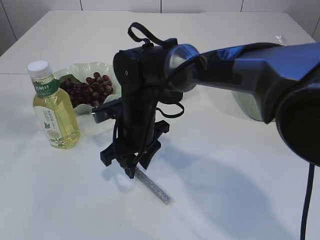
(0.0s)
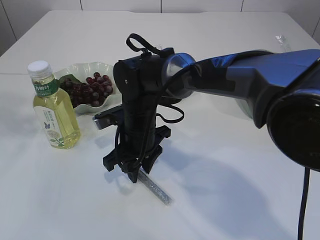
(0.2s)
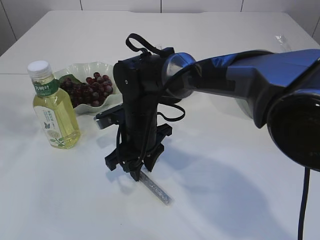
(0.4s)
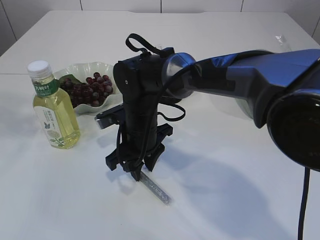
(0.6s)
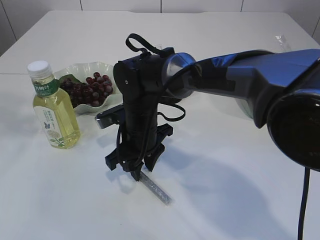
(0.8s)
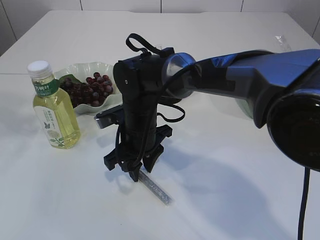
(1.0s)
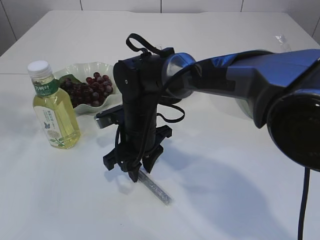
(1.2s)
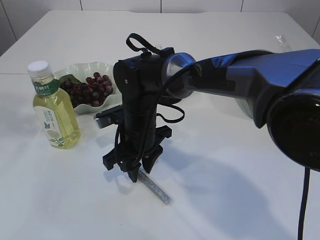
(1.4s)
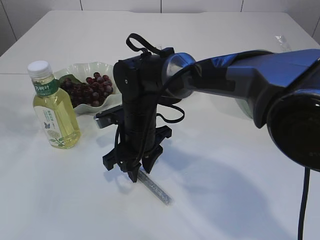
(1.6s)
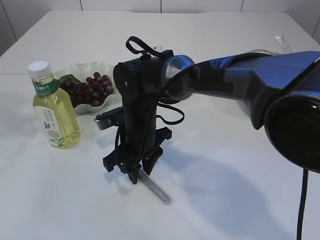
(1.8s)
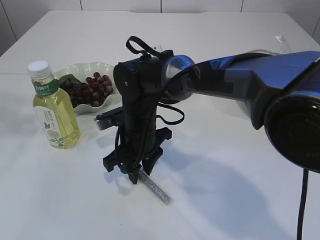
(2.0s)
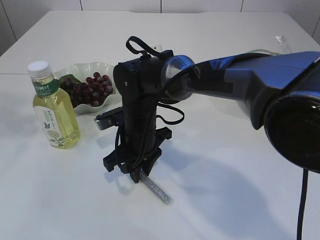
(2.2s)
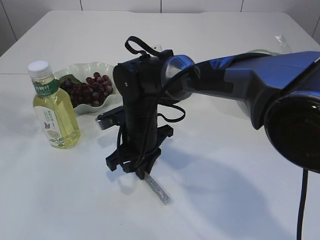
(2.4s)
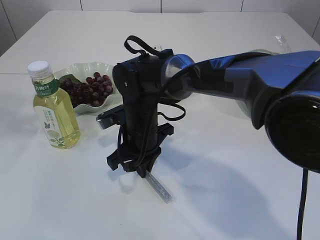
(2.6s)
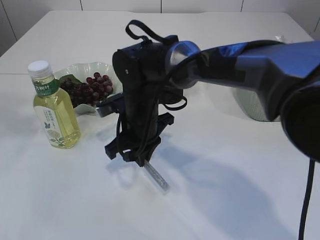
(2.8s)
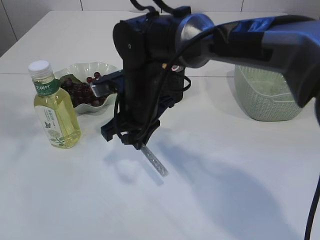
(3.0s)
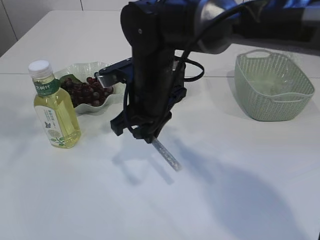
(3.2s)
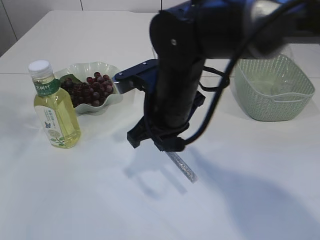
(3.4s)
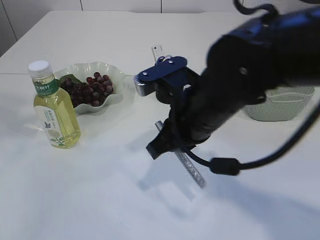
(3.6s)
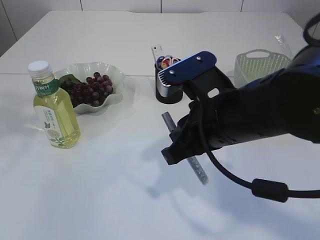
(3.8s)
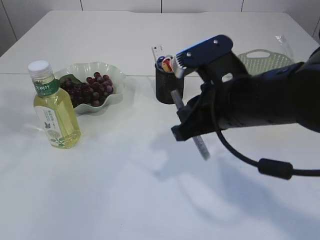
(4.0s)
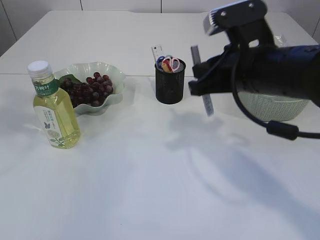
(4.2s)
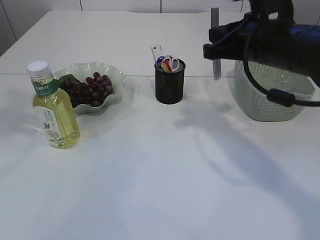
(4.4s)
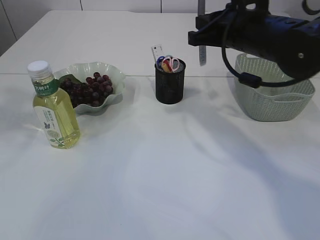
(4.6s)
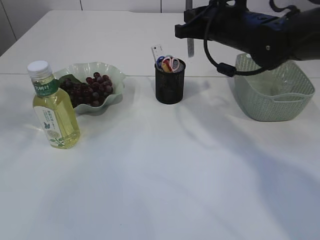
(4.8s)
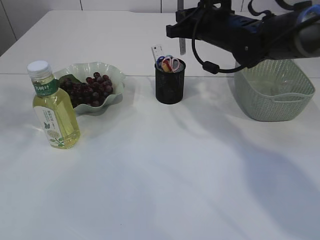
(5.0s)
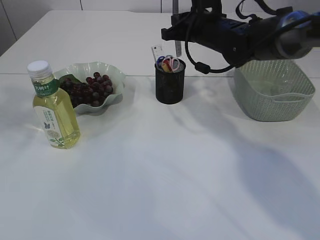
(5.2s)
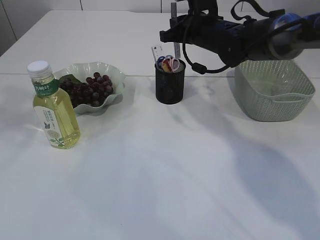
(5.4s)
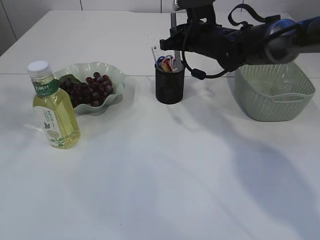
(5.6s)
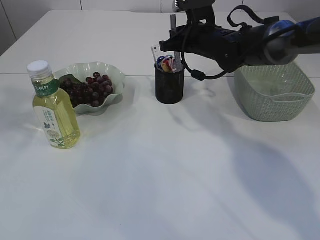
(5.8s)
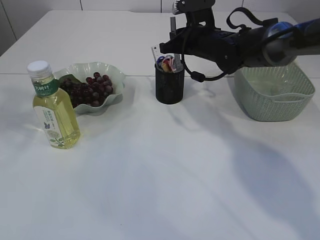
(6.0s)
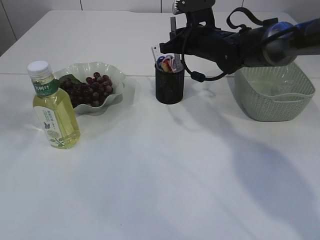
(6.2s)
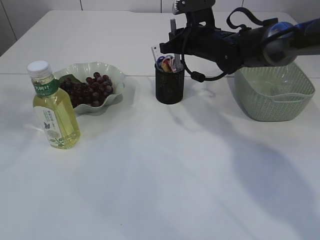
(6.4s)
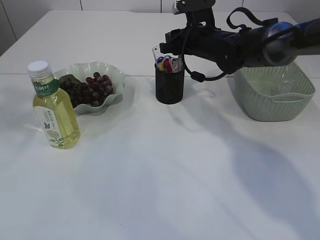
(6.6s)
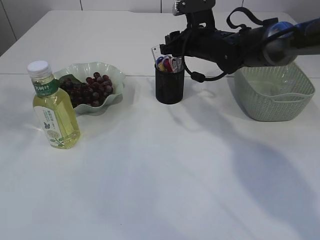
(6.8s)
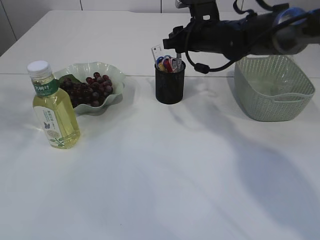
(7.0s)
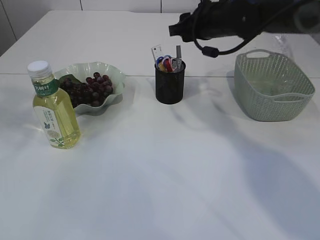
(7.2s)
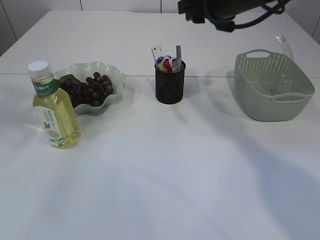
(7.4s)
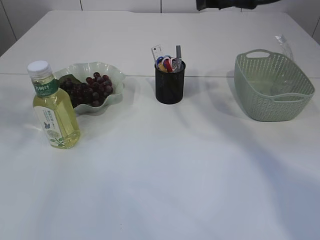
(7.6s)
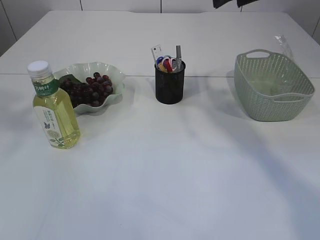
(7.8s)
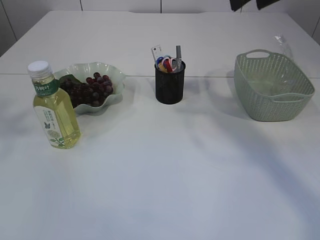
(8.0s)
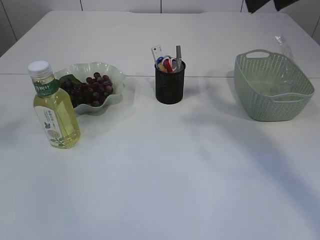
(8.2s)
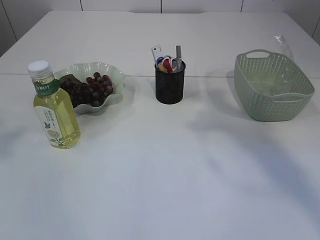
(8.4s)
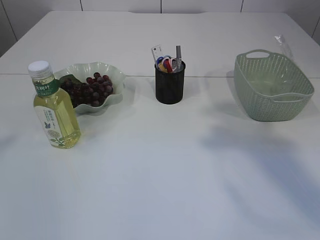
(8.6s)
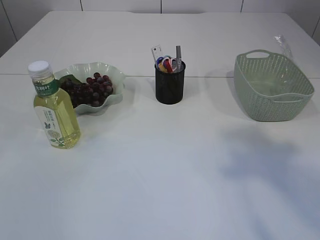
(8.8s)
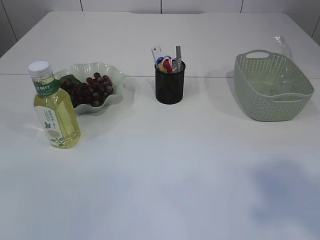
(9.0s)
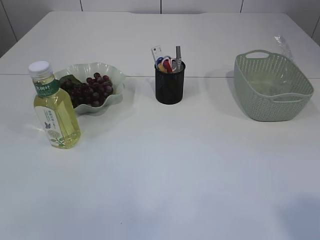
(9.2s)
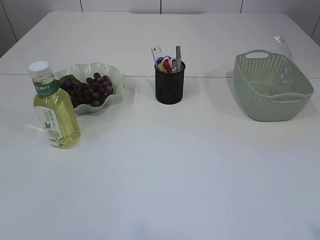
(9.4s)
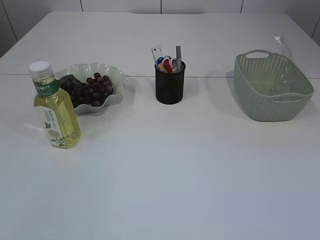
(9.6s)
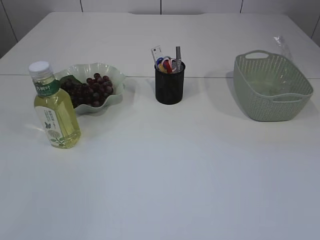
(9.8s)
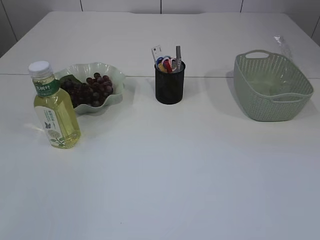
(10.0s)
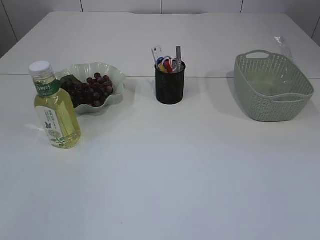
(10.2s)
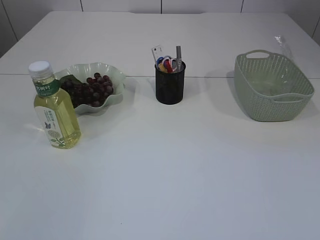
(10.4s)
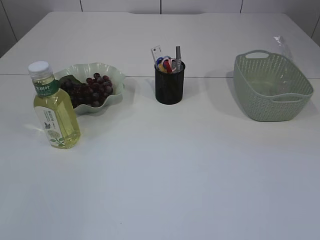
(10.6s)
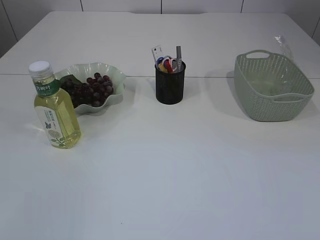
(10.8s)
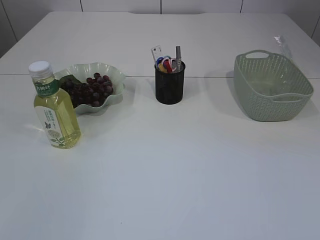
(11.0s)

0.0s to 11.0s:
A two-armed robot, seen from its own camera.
Step, 0.0s to 3.0s: pick up the silver glue.
Step, 3.2s to 7.0s: place the silver glue into the pen holder.
0.0s to 1.6s: The grippers make only small movements.
1.6s to 3.2s: The right gripper is displaced upward by some 10 cm, and closes.
3.2s to 4.8s: The right gripper travels to the right and forward by approximately 15 cm.
4.8s to 6.2s: The right gripper moves forward and downward, roughly 10 cm.
6.2s to 7.8s: The right gripper heads upward and backward, covering approximately 20 cm, and opens its fingers.
7.8s to 9.4s: The right gripper moves backward, approximately 35 cm.

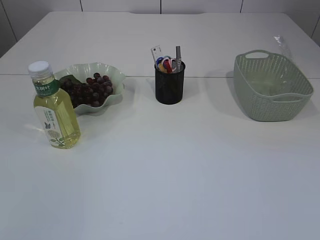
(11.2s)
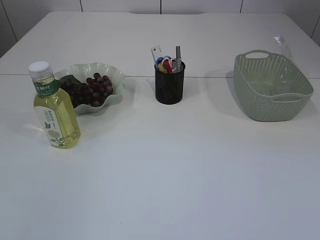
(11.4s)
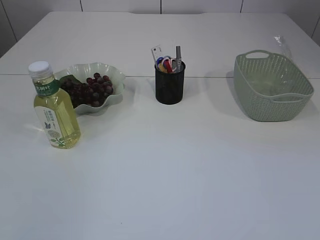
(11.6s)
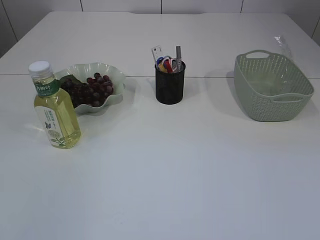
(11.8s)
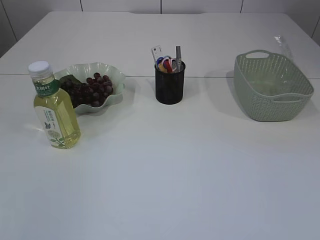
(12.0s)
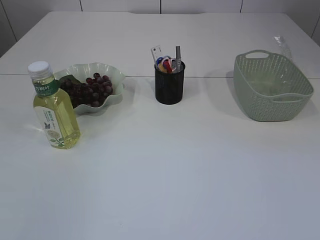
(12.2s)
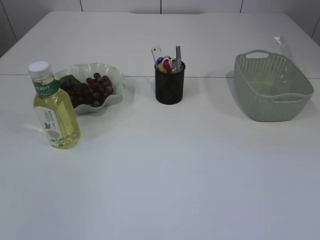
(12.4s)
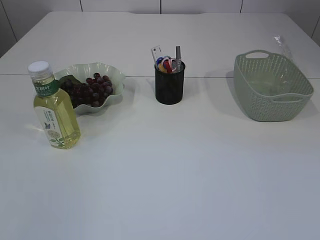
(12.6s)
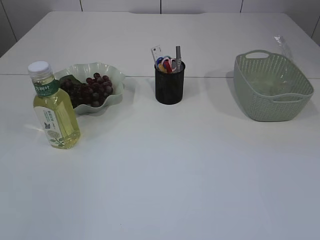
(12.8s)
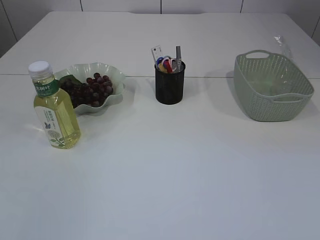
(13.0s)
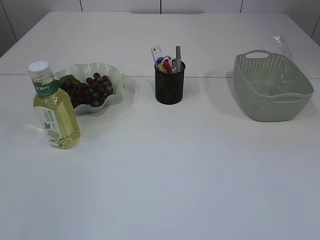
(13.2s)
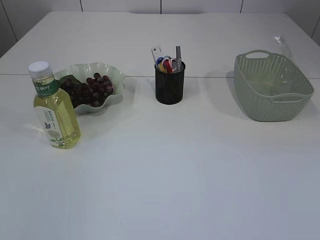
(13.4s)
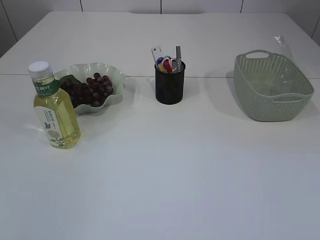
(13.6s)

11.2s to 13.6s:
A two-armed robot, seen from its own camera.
12.4s to 13.6s: The two grippers keep their place.

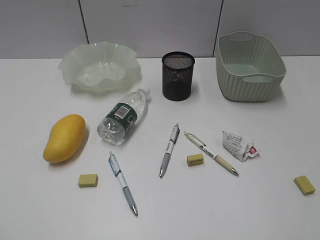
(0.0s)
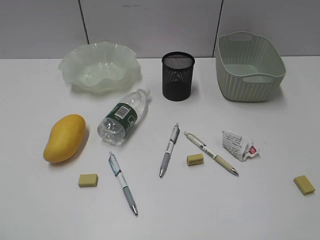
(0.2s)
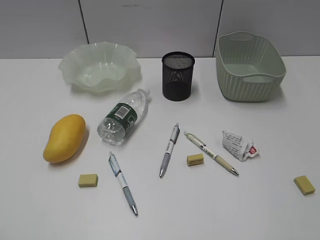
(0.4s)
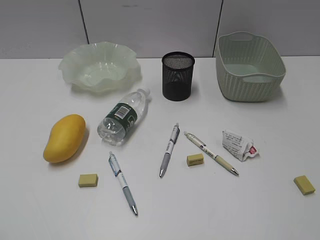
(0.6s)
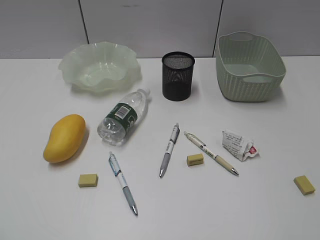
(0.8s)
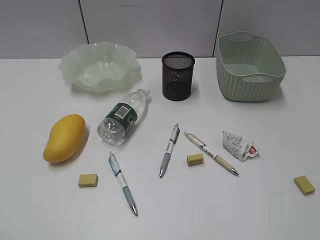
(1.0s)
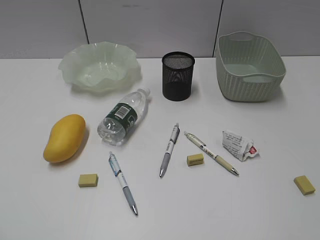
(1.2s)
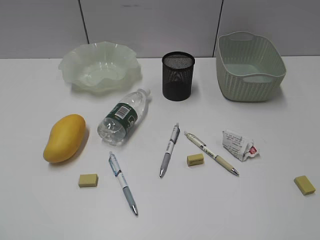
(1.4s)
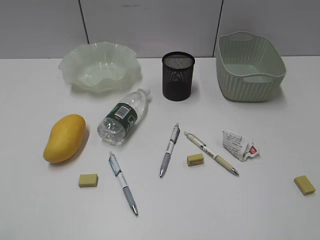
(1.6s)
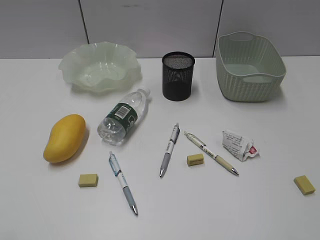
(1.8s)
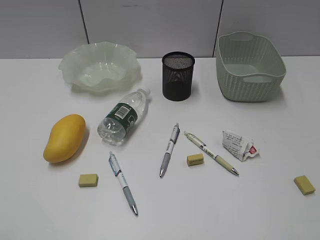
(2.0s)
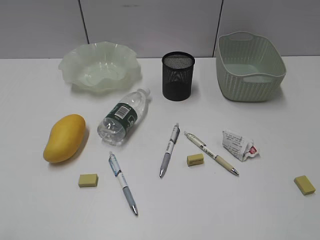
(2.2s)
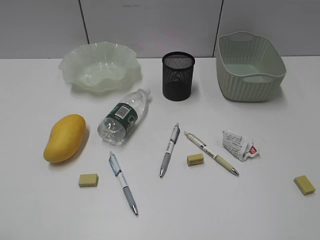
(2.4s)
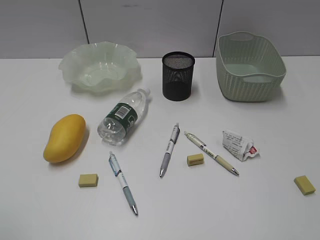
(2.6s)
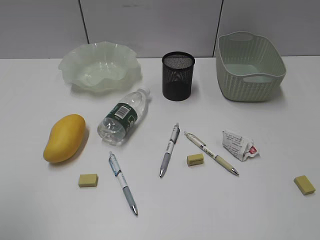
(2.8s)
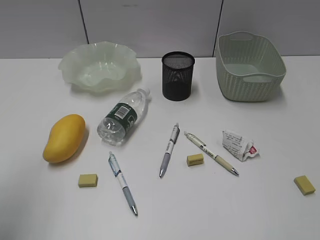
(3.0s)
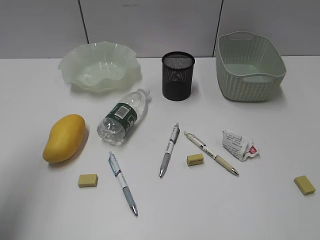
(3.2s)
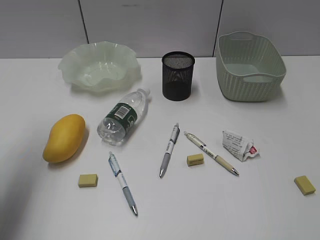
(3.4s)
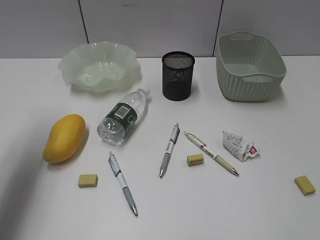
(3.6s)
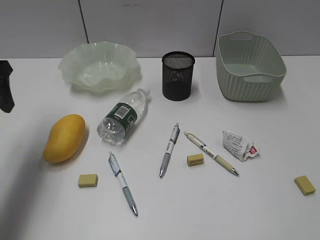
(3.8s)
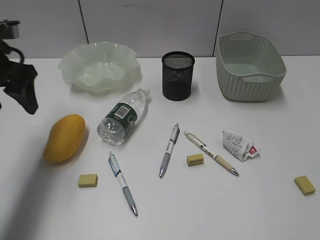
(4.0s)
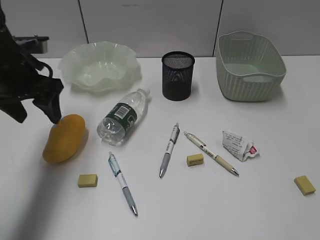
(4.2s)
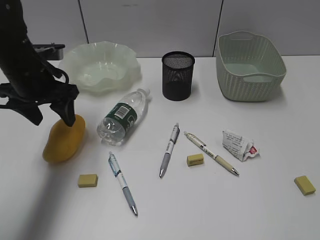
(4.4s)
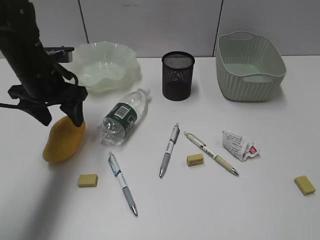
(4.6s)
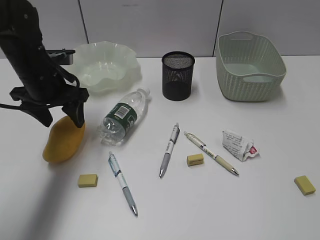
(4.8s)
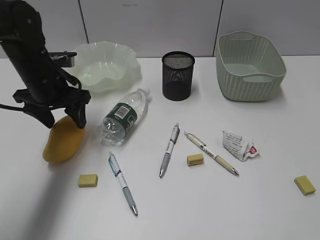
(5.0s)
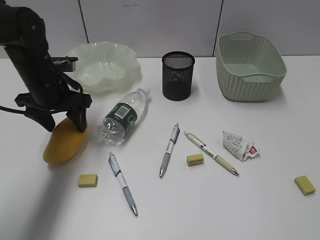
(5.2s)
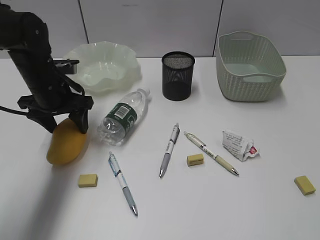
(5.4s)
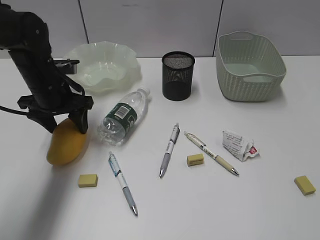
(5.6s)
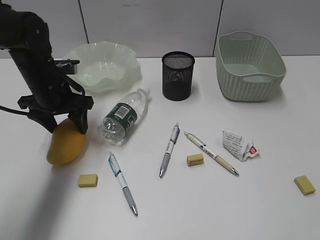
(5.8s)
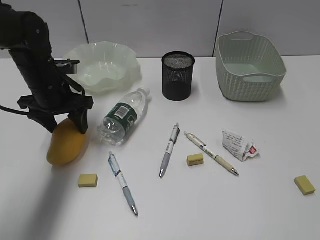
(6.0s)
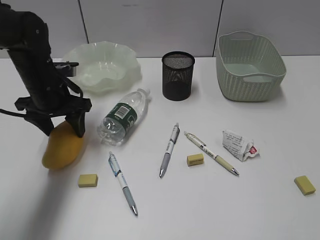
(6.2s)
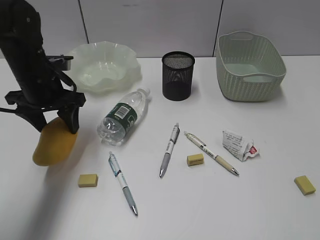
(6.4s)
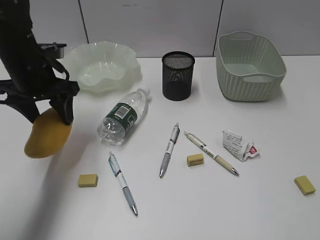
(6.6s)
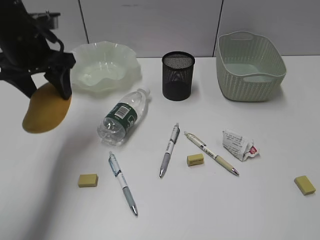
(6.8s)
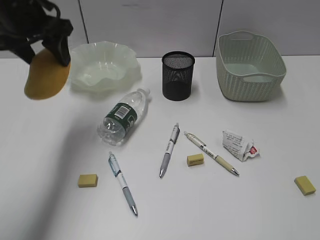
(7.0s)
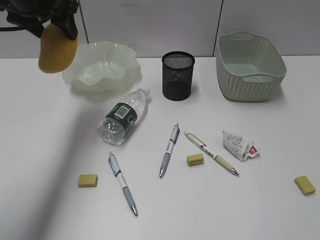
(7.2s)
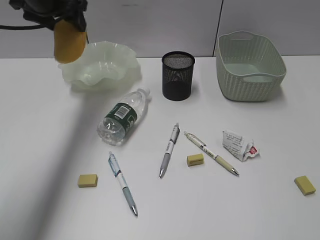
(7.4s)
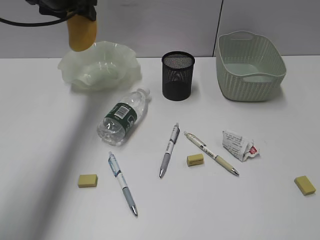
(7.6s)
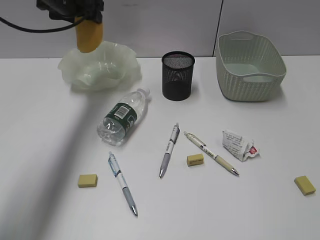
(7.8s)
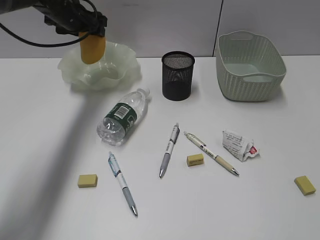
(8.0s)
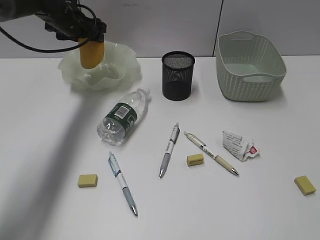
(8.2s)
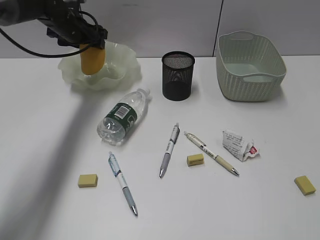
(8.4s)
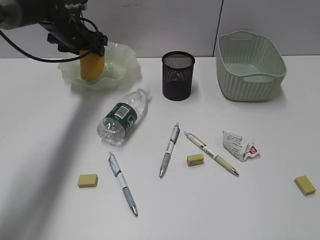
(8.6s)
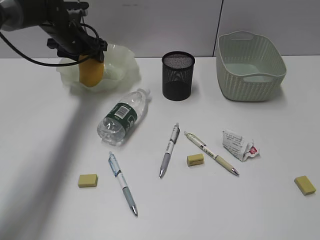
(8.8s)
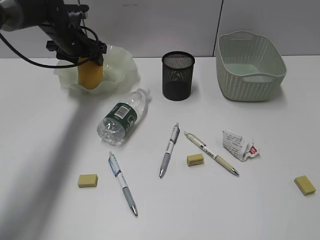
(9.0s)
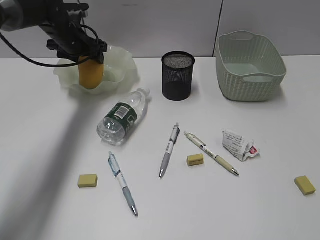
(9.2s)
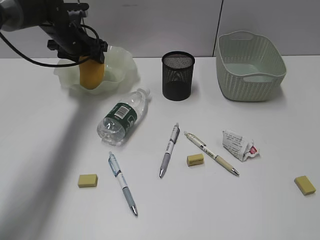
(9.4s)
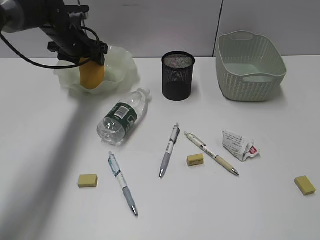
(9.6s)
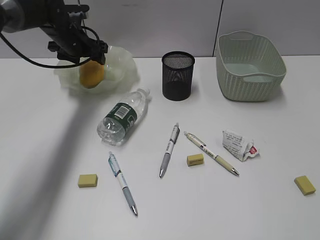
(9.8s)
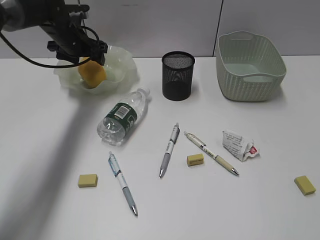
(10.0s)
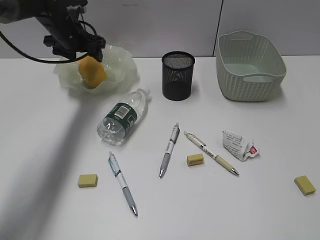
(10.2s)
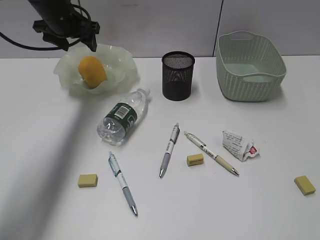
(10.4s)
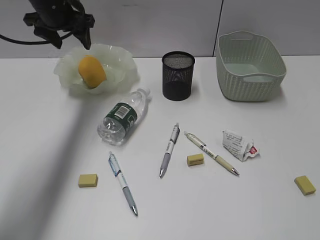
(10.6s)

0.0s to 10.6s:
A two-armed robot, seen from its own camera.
Step, 3.8s to 6.0s: Grasp the mango with left gripper.
Step, 6.2s to 10.2s: Place the mango in the plate with left gripper.
1.6s to 3.0s: The left gripper shifts roughly 15 cm forward.
3.0s to 4.6s: The left gripper heads forward, downward and to the right, covering approximately 30 cm.
4.6s to 6.0s: The grippers stay close to where they were, moving slightly.
6.0s to 7.6s: The left gripper moves upward and forward, about 15 cm.
7.6s to 9.0s: The left gripper goes approximately 10 cm downward.
9.0s to 10.6s: The left gripper moves upward, approximately 10 cm.
